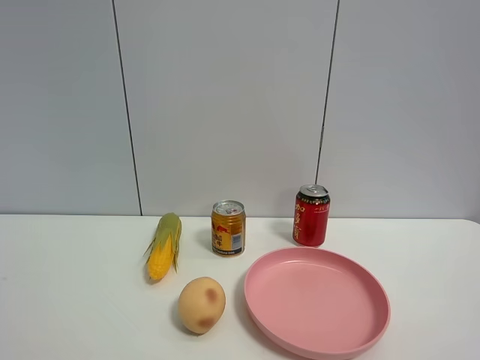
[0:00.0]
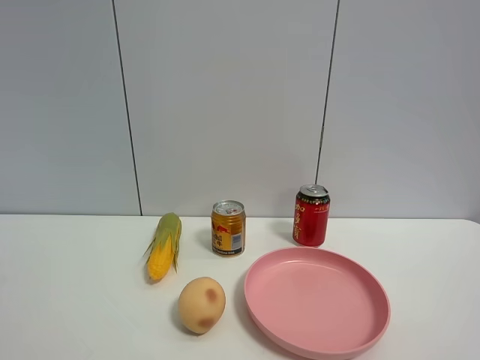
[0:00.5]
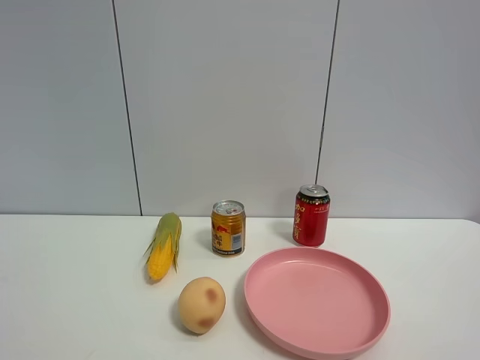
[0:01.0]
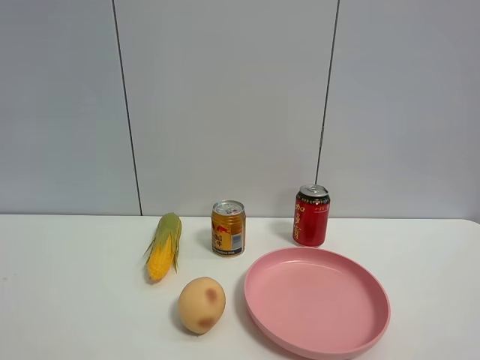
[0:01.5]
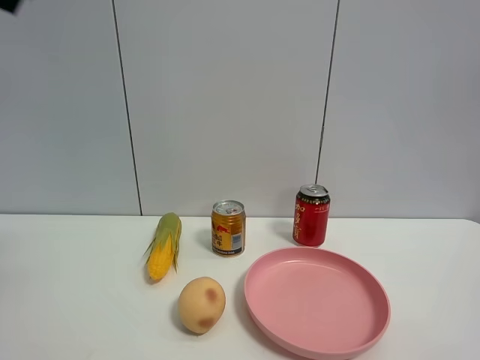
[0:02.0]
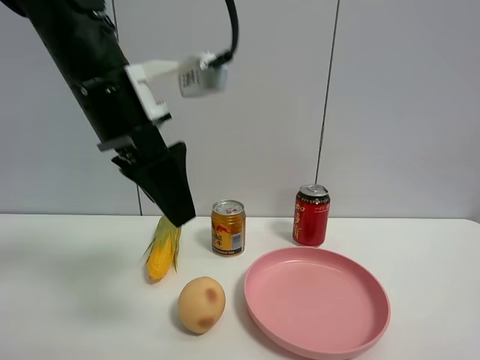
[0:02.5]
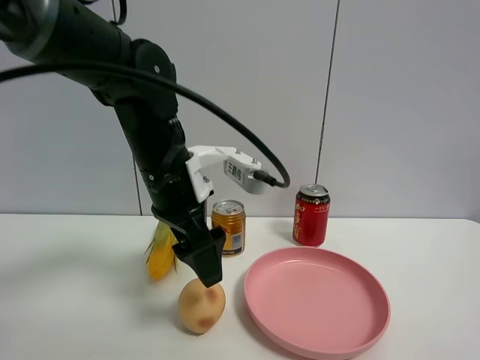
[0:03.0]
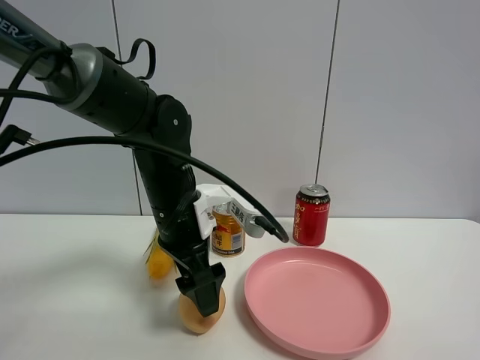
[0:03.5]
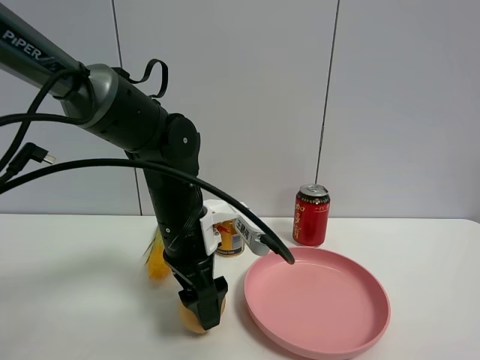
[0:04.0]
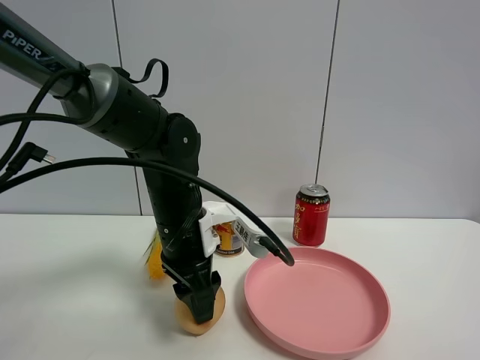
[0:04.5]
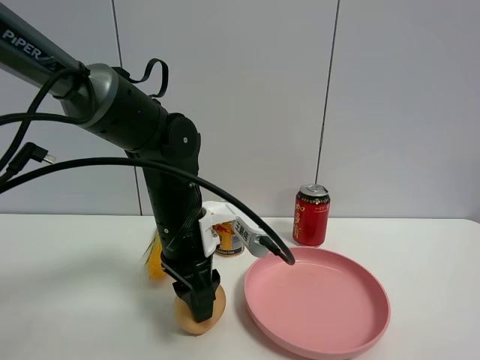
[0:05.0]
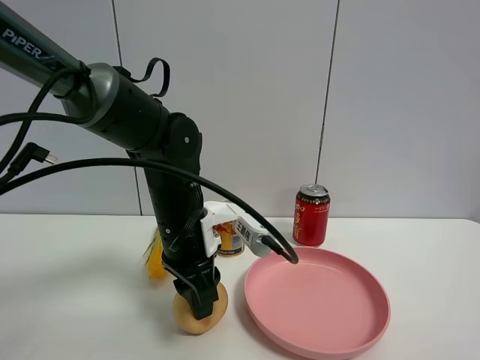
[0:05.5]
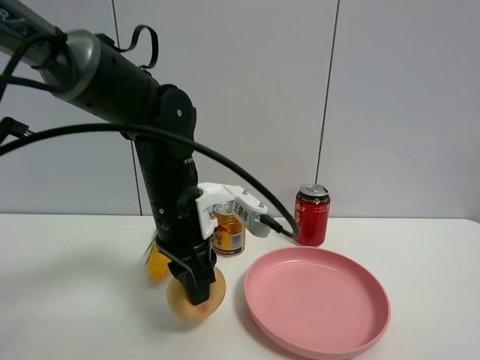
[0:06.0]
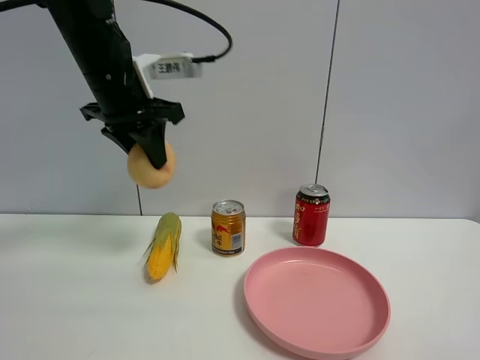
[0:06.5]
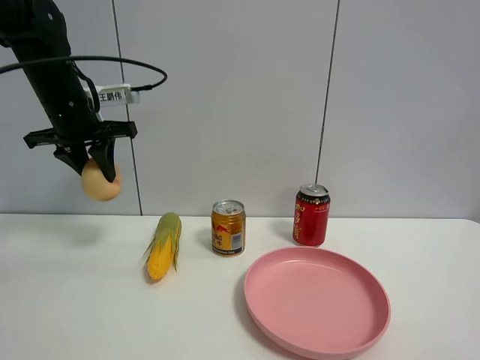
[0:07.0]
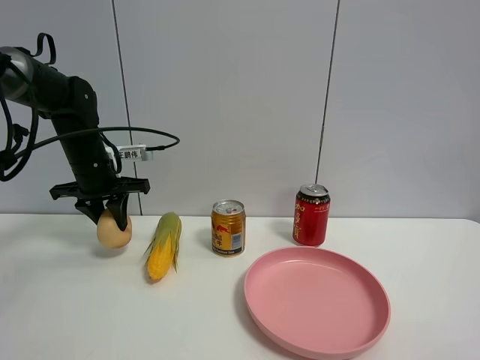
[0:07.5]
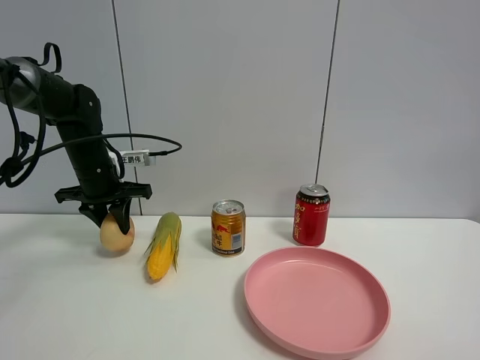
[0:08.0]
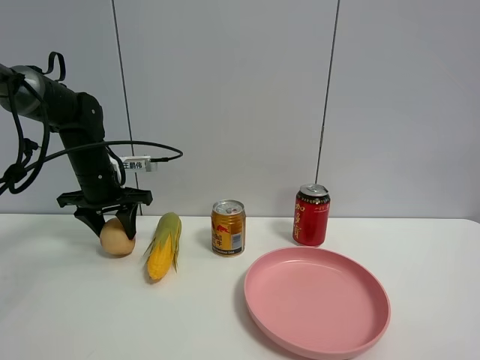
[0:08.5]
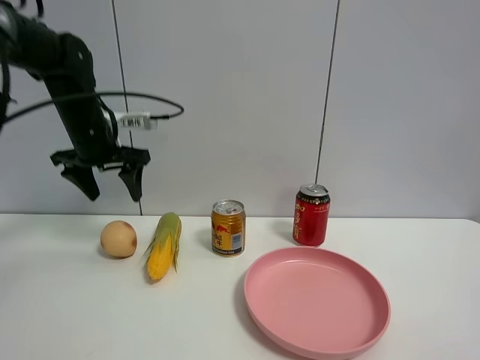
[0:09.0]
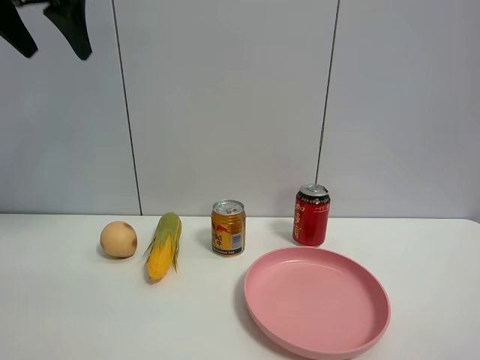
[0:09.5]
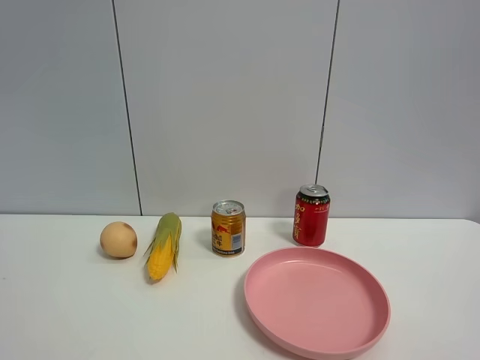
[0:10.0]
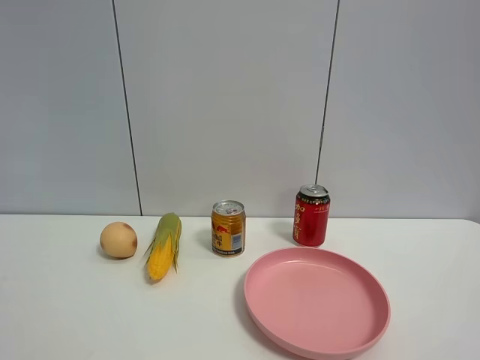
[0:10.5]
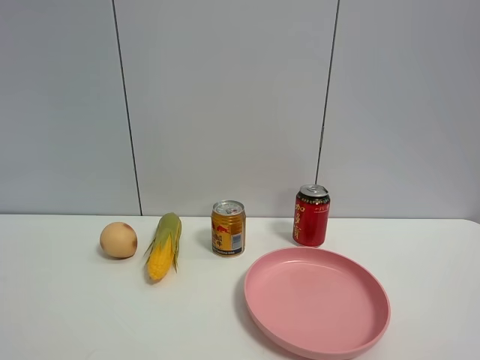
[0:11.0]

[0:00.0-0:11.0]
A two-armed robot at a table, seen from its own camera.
Task of the whole recording: the gripper move the object.
Step, 0:00.0 to 0:04.0: Grasp the egg yolk pastry with the left gripper.
Step, 0:04.5 to 0:08.5: Place the egg yolk pastry on the table with the left gripper.
0:02.0 to 0:03.5: The left gripper travels downward, to the right and forward by some 35 cm.
0:03.5 to 0:05.5: The left gripper closes up.
0:05.5 to 0:07.5: The left gripper goes approximately 20 cm to the left and forward.
0:07.5 to 0:09.0: The left gripper heads upward, covering about 10 cm, and opens up.
0:09.0 to 0:11.0: The left gripper moves backward, some 40 cm.

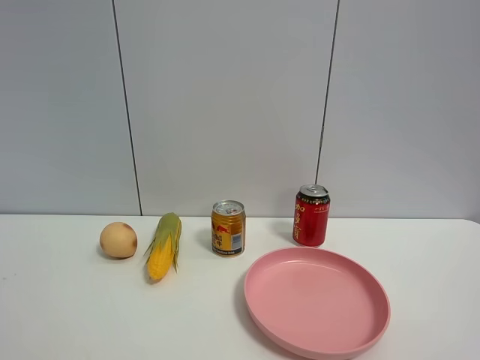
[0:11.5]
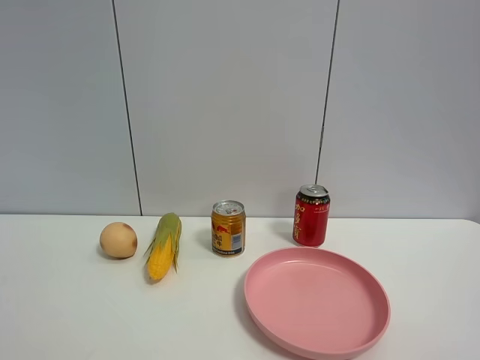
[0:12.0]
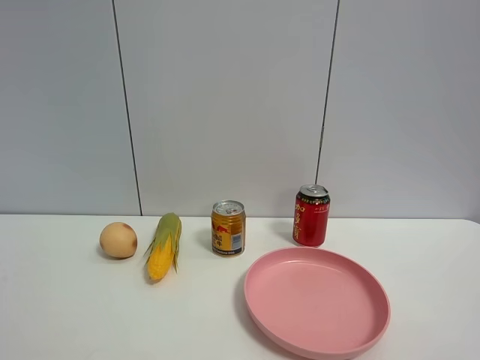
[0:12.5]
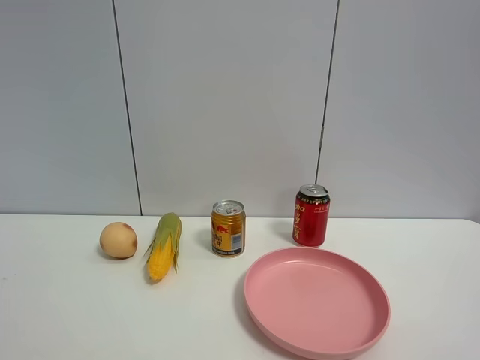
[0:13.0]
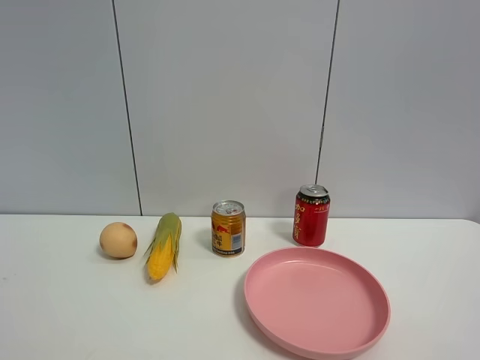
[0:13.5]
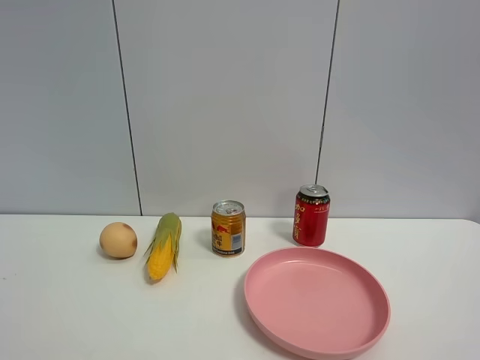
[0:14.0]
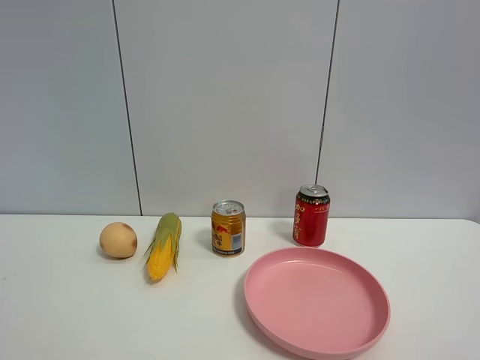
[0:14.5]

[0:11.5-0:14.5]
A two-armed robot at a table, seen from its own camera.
Task of the whole recording: the gripper move the object.
0:13.0 to 0:14.5: Both grippers stay about where they are.

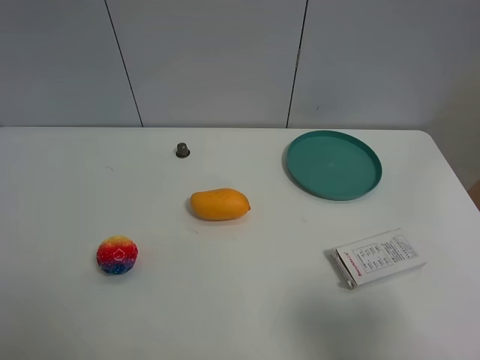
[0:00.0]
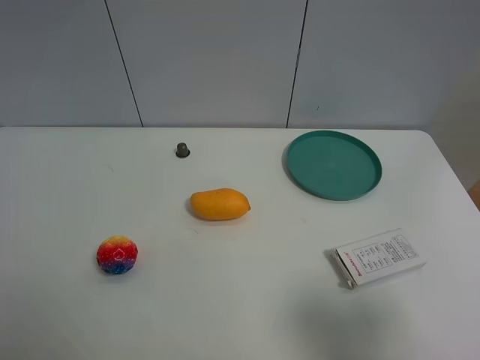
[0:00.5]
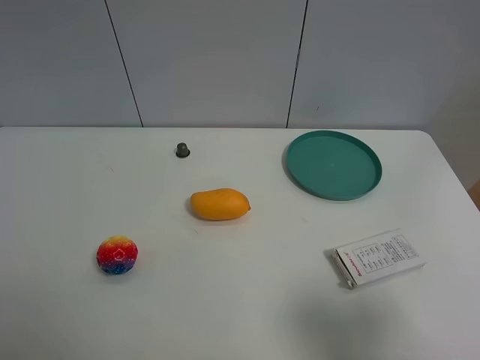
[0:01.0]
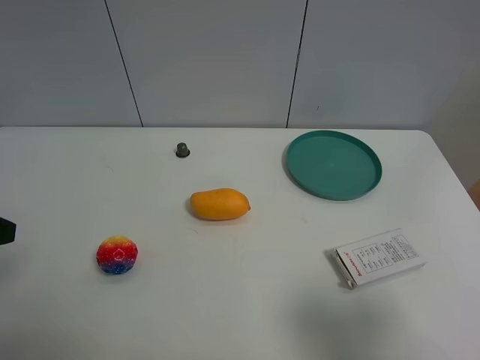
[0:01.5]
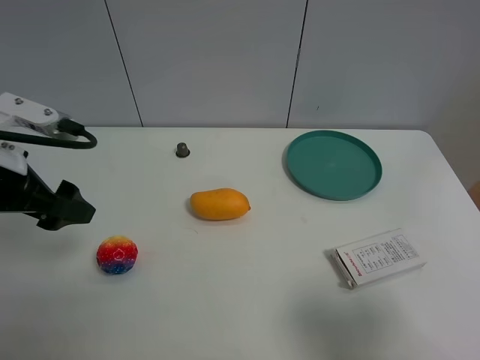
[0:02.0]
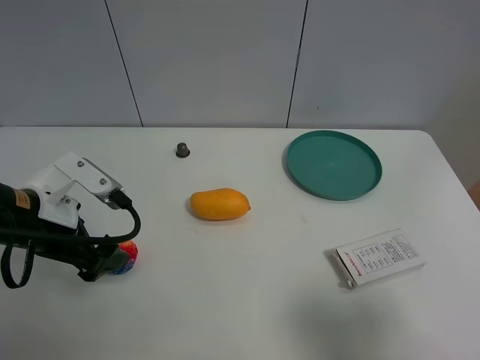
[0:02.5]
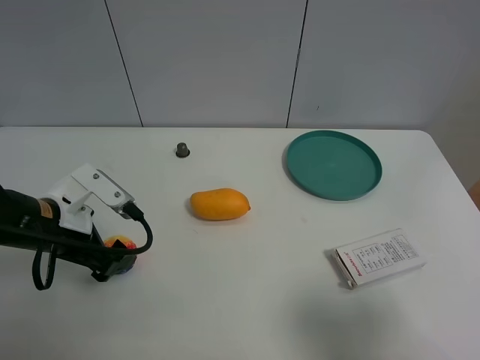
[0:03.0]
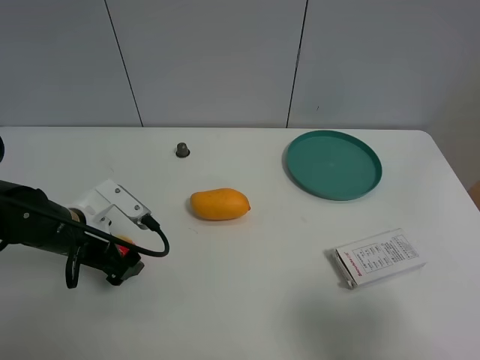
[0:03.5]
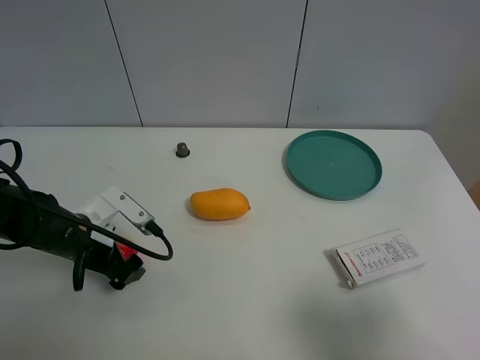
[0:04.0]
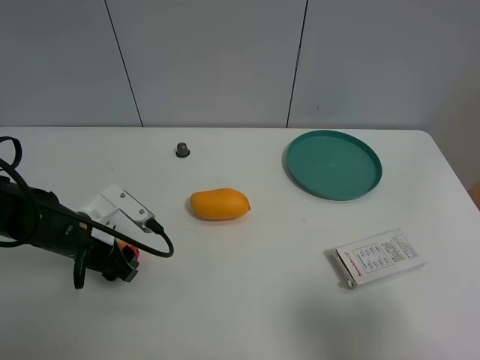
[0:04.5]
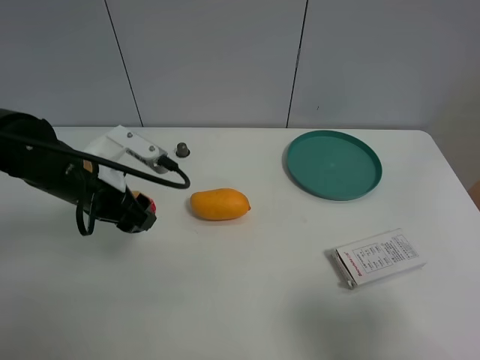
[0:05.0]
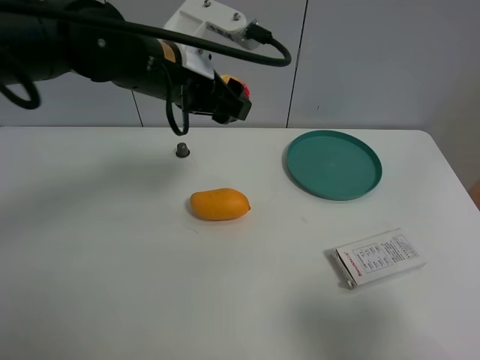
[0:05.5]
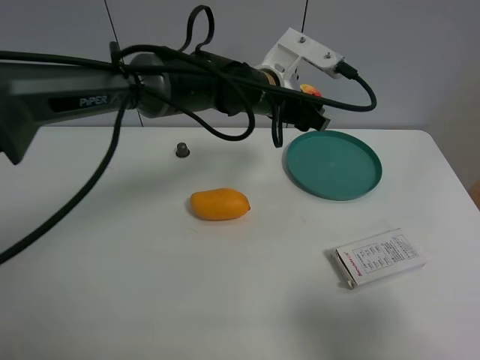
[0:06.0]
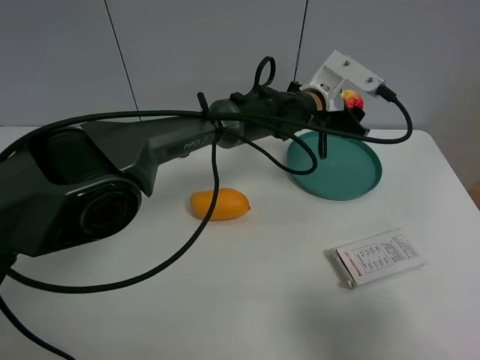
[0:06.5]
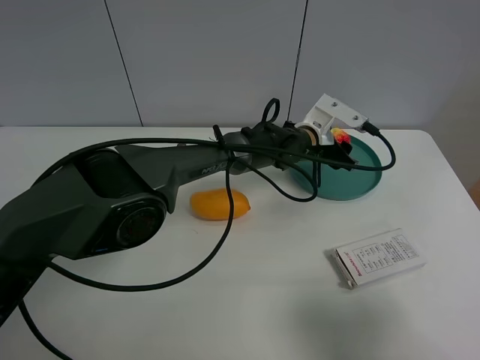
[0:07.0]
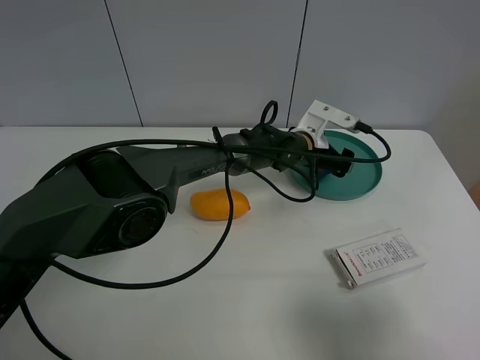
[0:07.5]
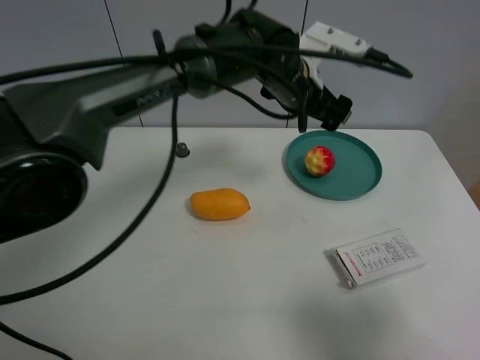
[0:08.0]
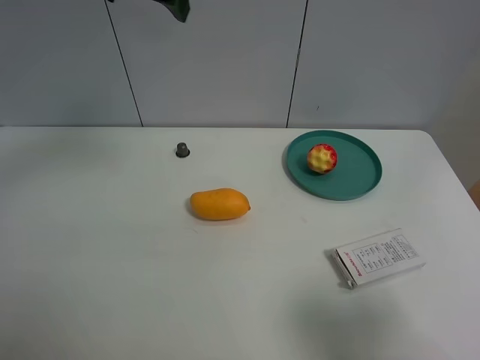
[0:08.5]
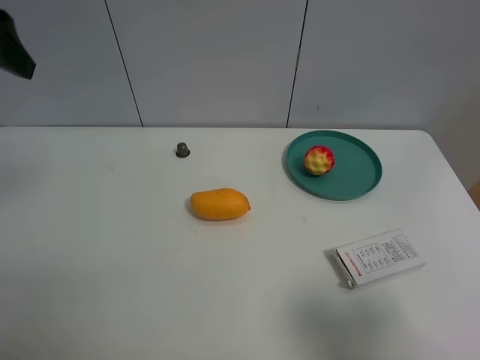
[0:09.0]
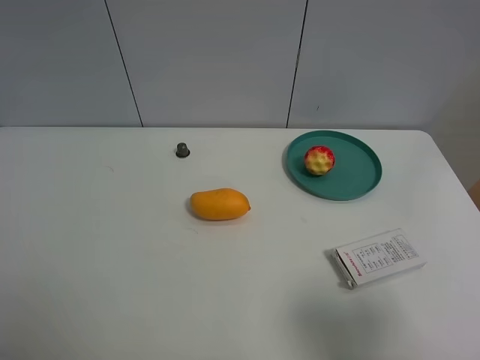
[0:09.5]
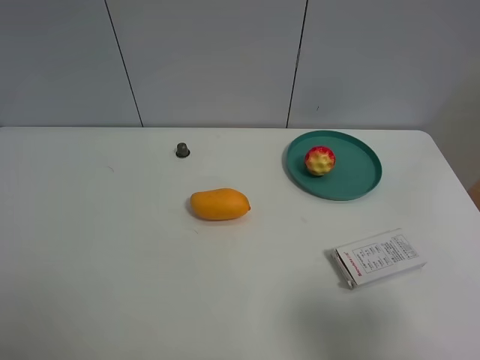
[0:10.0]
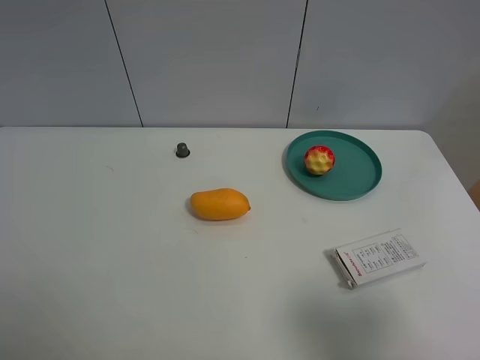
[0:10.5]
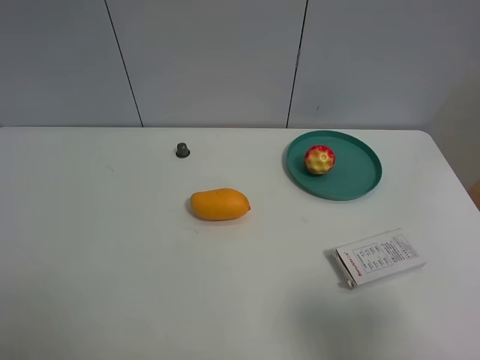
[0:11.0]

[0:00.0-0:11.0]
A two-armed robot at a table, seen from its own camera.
Task of the whole recording: the gripper move the object.
Step, 0:00.0 to 0:04.0: Grasp the colorful ball with the left gripper.
Step, 0:04.5 to 0:08.0: Place the colorful ball into the green plate with the left gripper.
0:00.0 to 0:02.0: The left gripper shifts some 20 cm forward.
0:02.0 to 0:03.5: The left gripper goes about 15 cm downward.
0:03.5 to 0:05.5: The left gripper goes about 25 cm upward, to the right and forward, and closes up.
0:05.5 to 0:07.5: The left gripper heads downward, to the right and forward, covering about 30 cm, and opens up.
0:07.5 to 0:09.0: The left gripper moves to the left, upward and backward, approximately 50 cm.
0:09.0 to 0:11.0: The left gripper travels backward and downward by about 25 cm.
